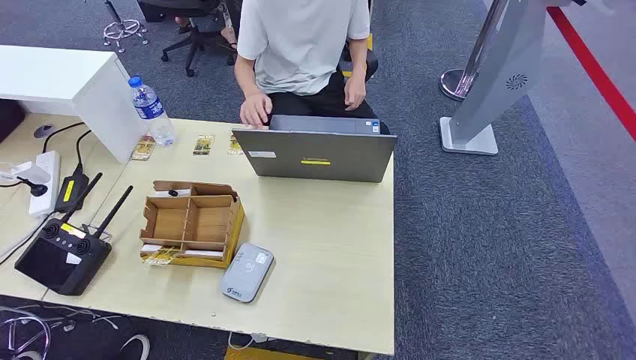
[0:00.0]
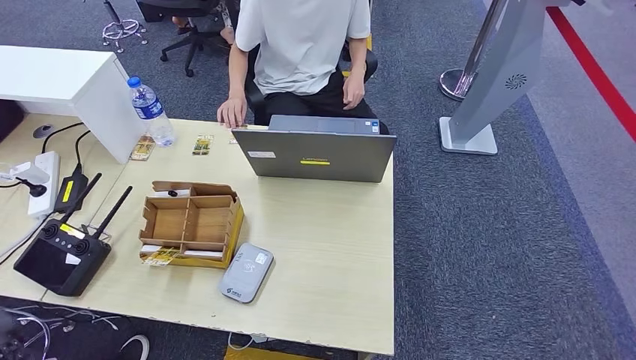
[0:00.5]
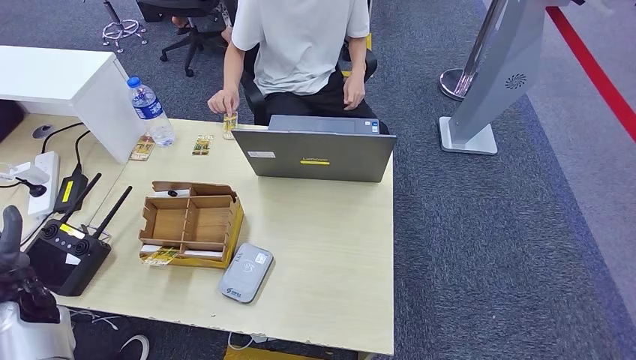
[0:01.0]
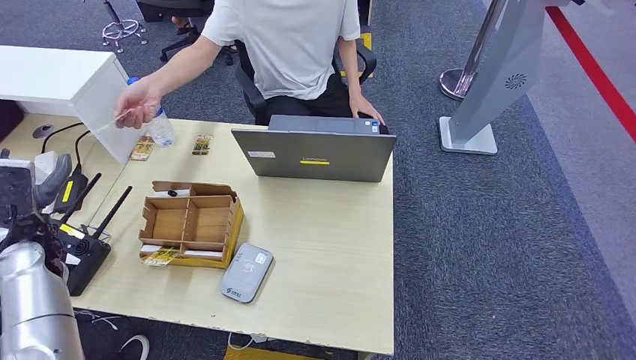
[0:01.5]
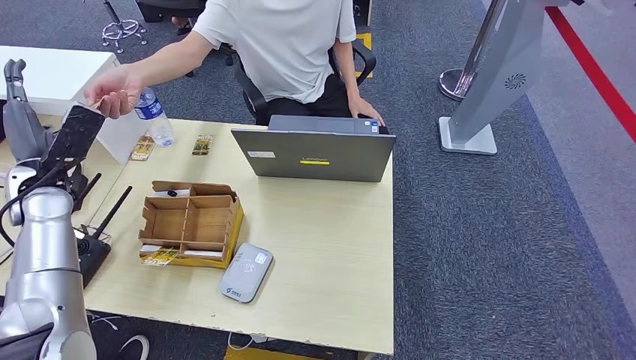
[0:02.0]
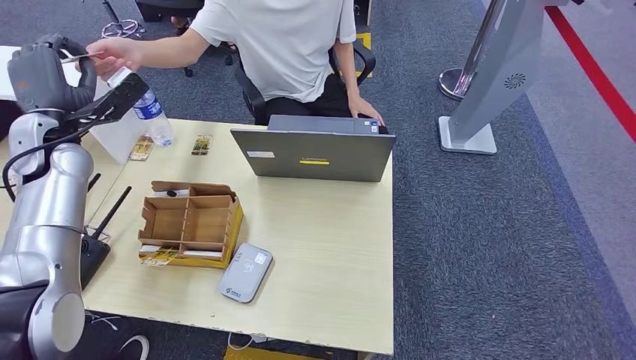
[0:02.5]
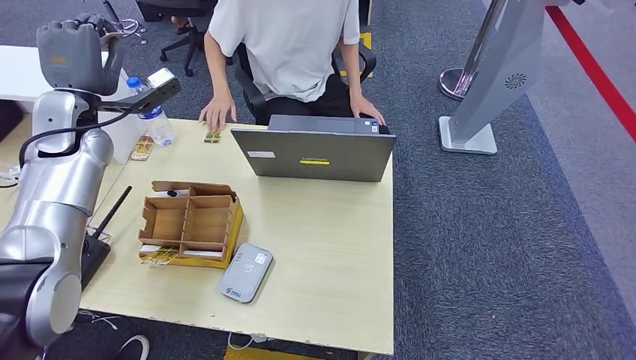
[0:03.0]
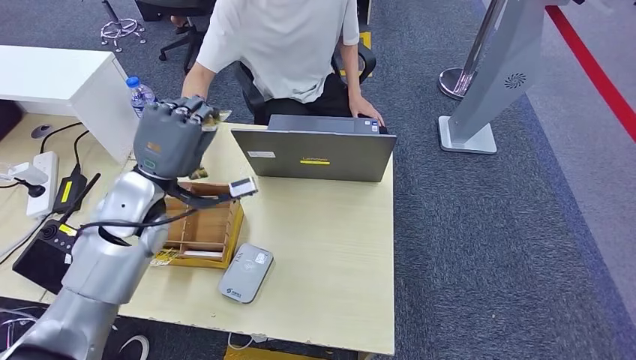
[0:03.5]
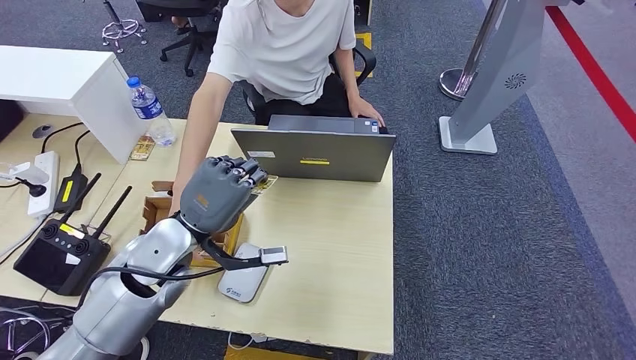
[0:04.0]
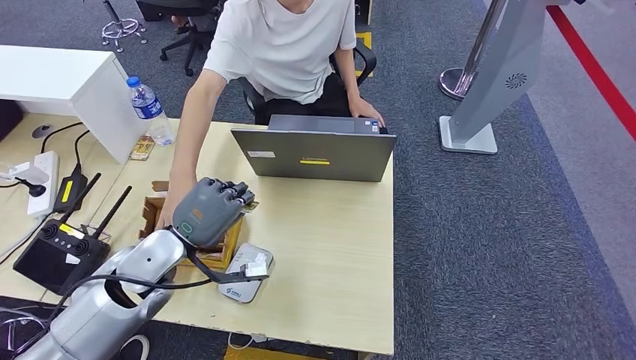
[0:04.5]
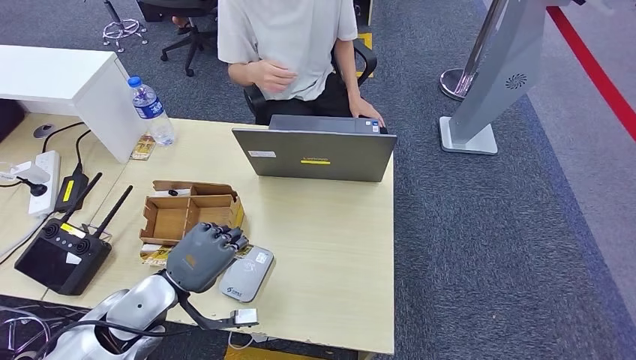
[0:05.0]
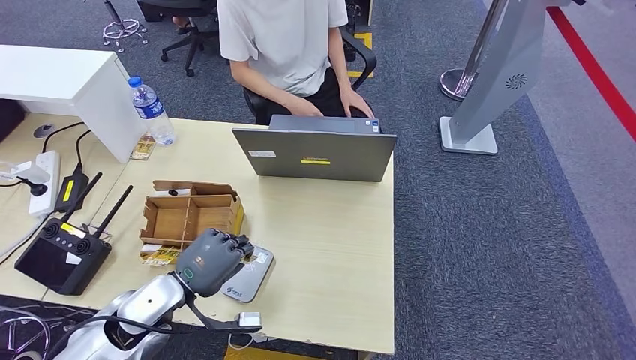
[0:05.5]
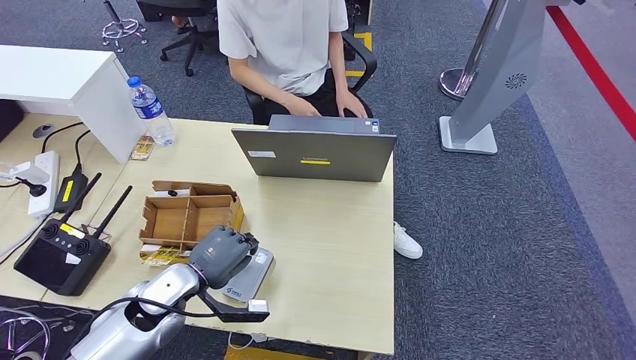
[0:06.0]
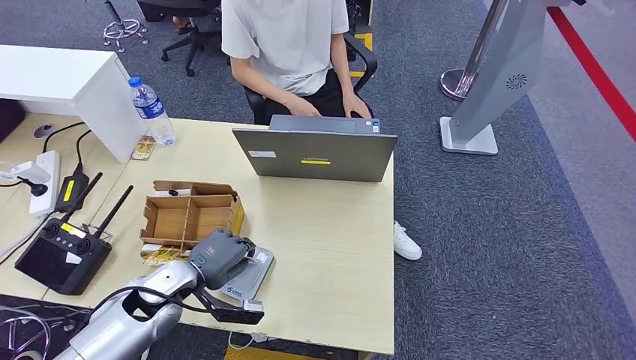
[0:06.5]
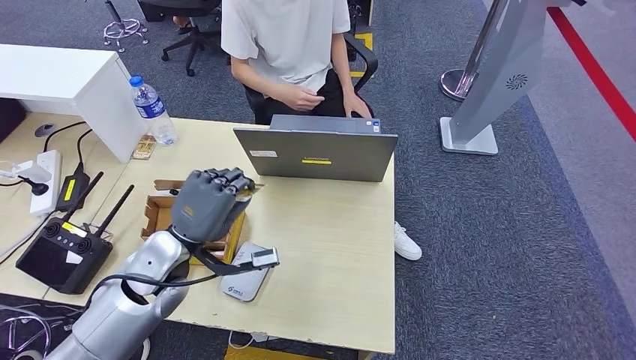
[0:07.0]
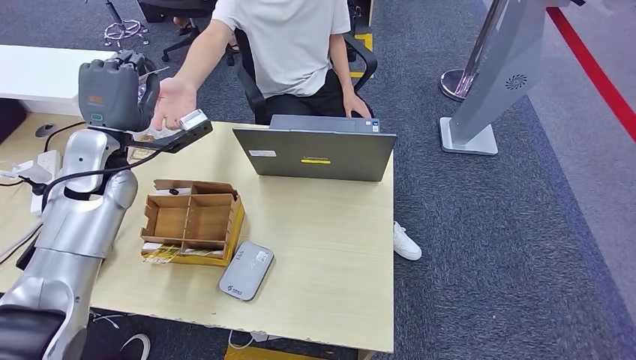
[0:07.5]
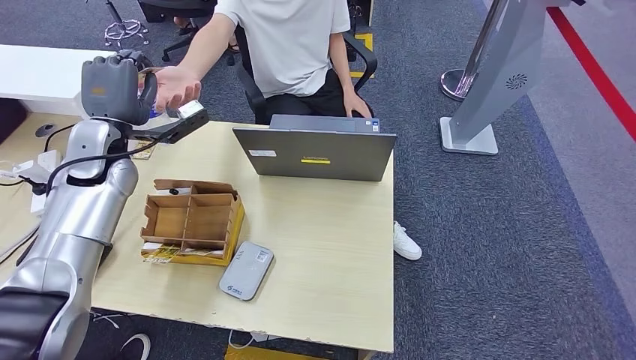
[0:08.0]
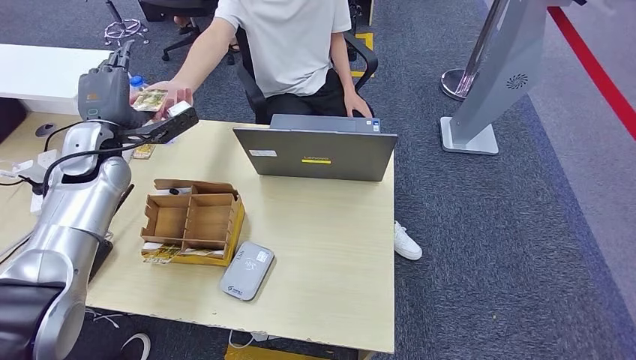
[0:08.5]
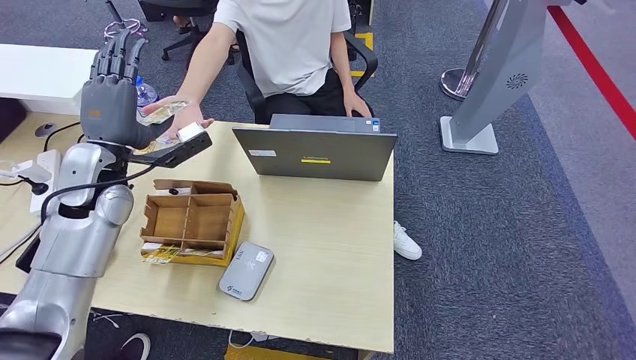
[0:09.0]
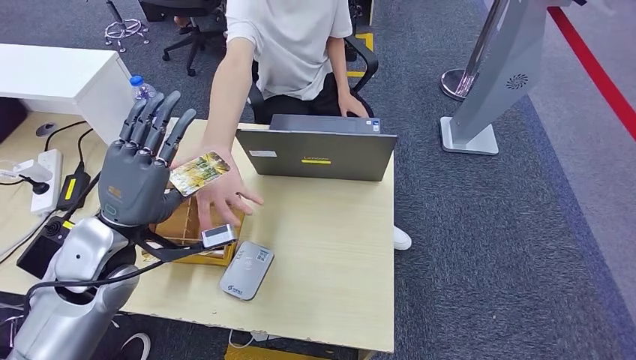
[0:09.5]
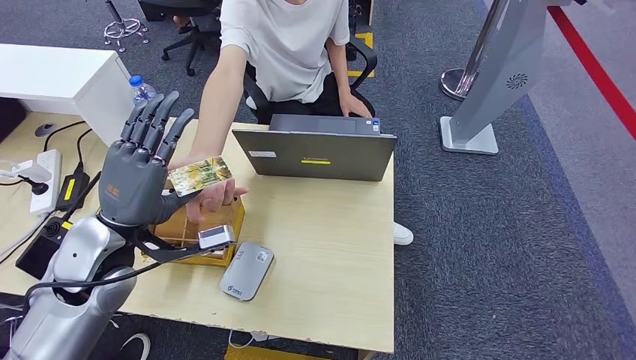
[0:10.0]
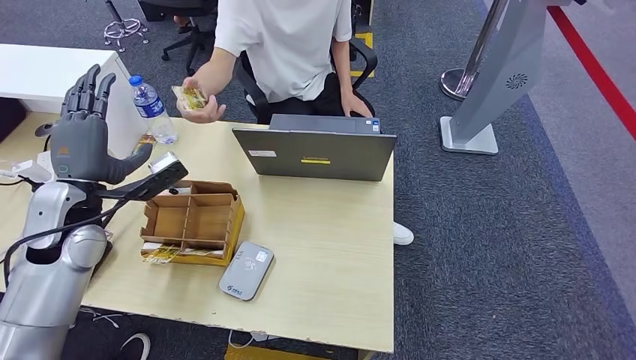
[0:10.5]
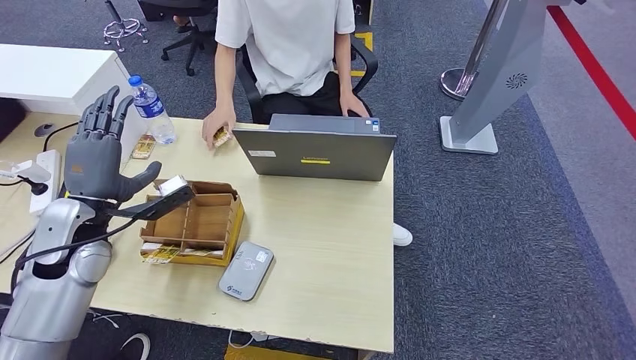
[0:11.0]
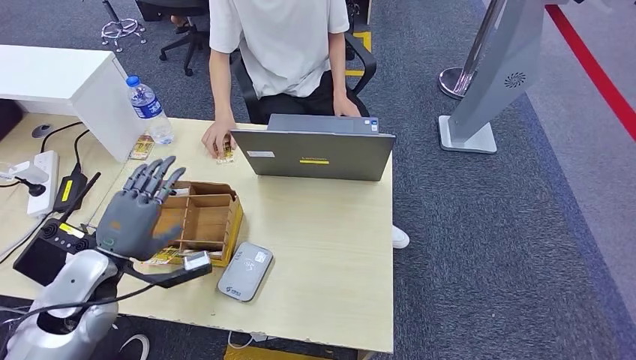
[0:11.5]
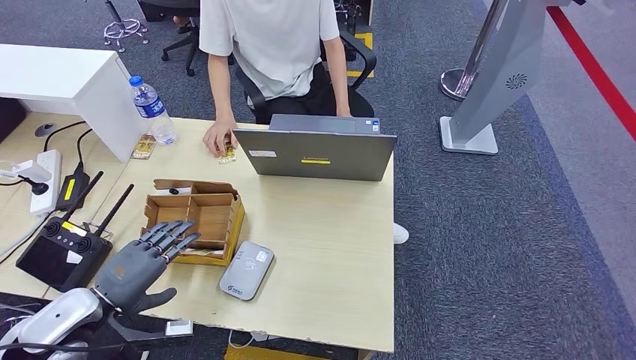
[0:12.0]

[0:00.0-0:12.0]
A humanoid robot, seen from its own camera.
Step, 0:00.0 to 0:02.5: Take the ID card from the person's hand.
Step, 0:03.0 to 0:06.0: Place the ID card on the card reader.
Step, 0:06.5 to 0:09.0: Hand the ID card to the person.
0:04.0 to 0:06.0: The left hand heads downward, covering approximately 10 cm.
0:10.0 to 0:12.0: The left hand goes about 15 cm downward, to the left and backward.

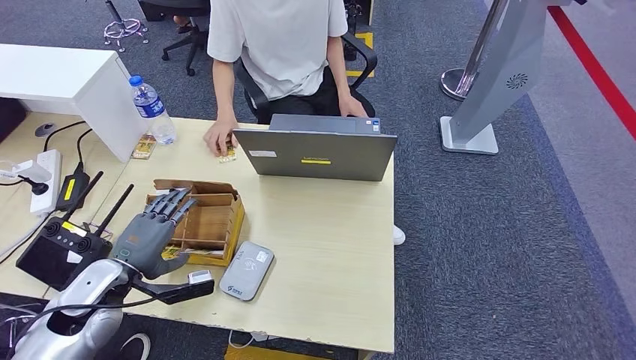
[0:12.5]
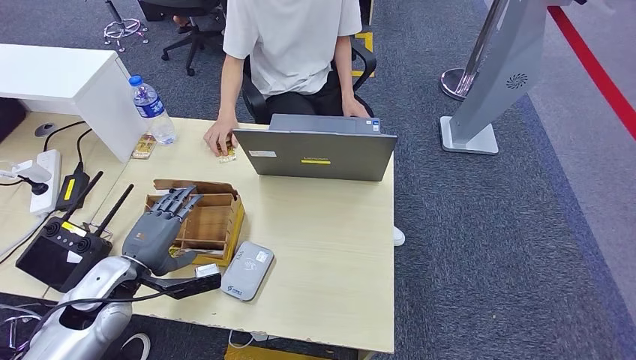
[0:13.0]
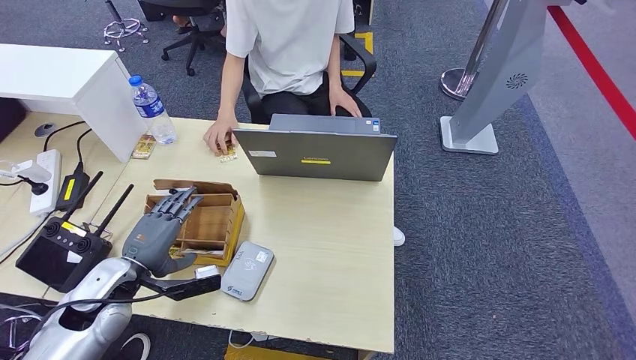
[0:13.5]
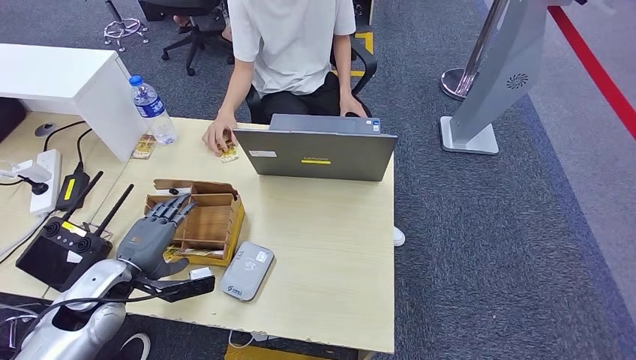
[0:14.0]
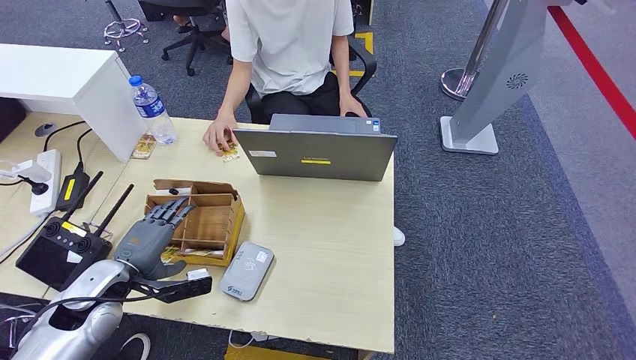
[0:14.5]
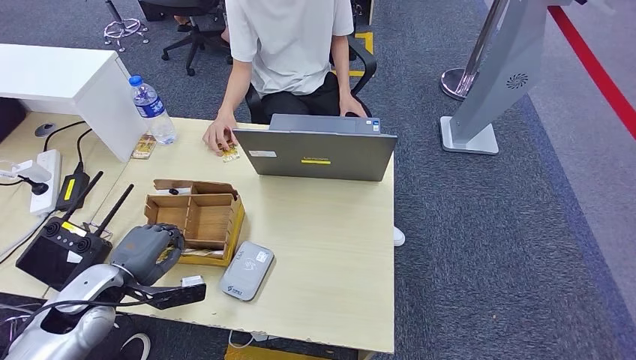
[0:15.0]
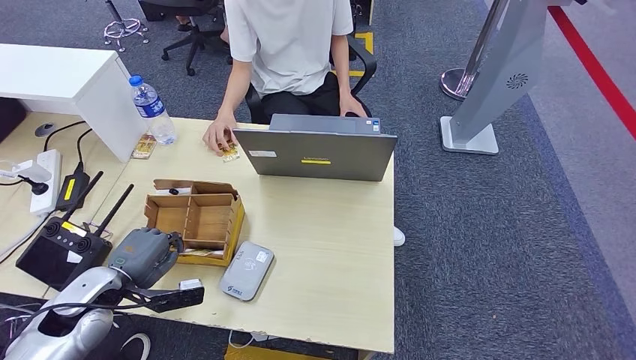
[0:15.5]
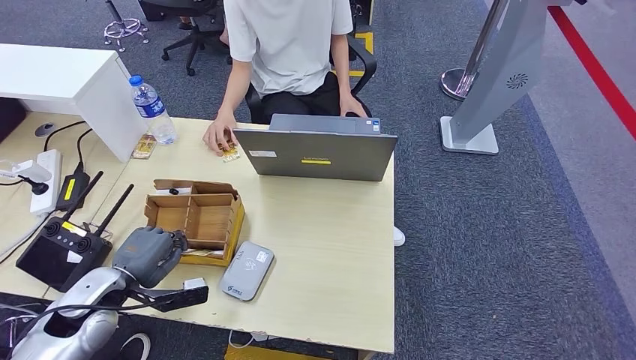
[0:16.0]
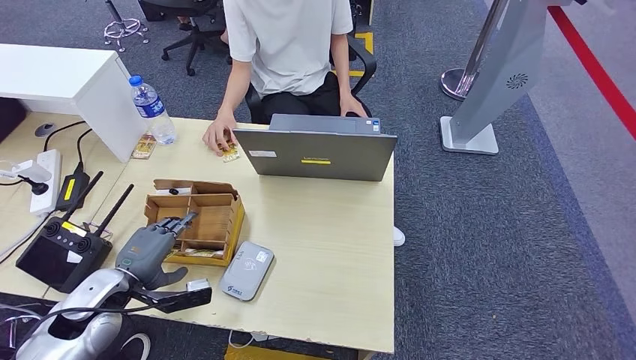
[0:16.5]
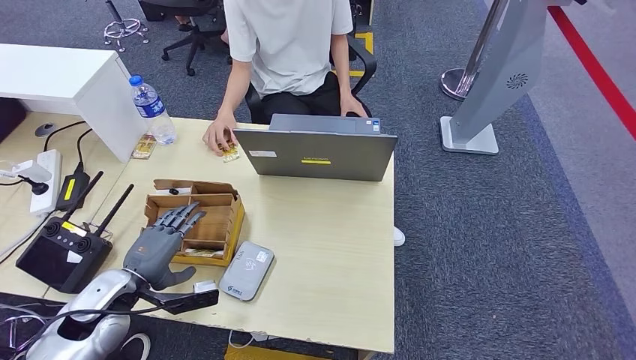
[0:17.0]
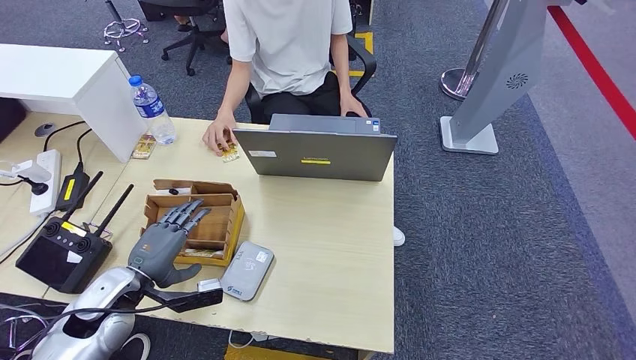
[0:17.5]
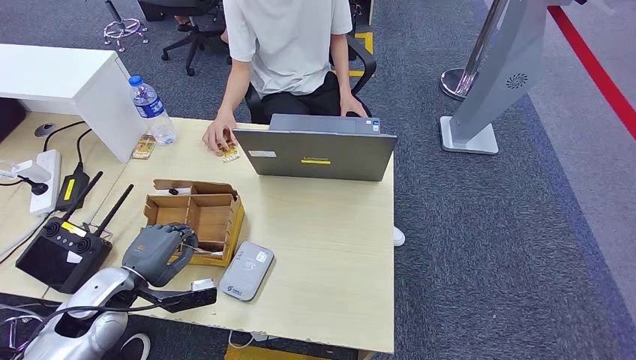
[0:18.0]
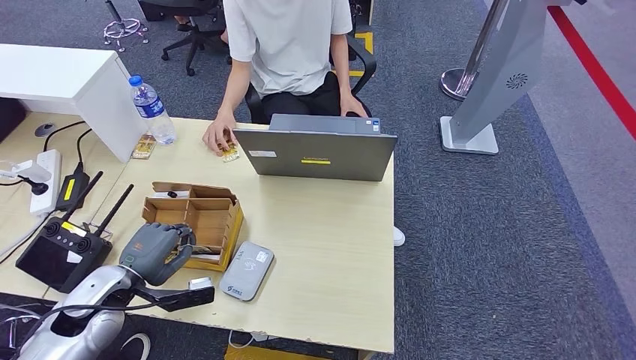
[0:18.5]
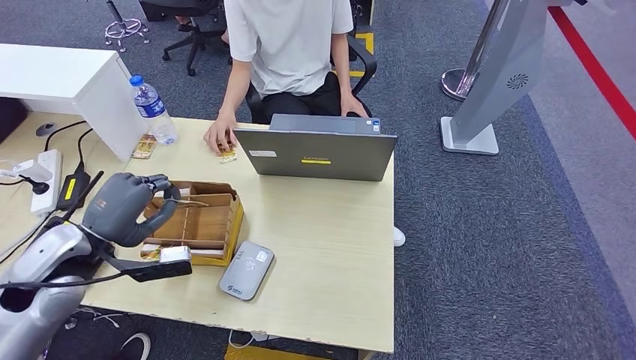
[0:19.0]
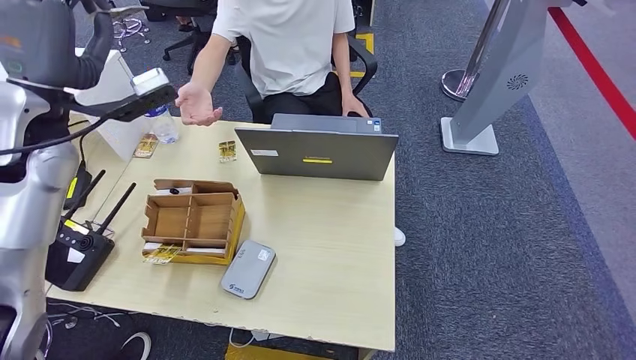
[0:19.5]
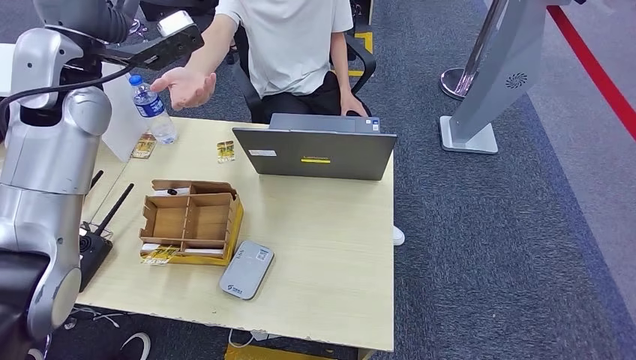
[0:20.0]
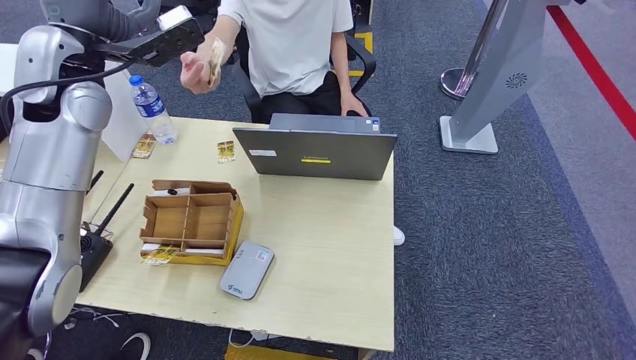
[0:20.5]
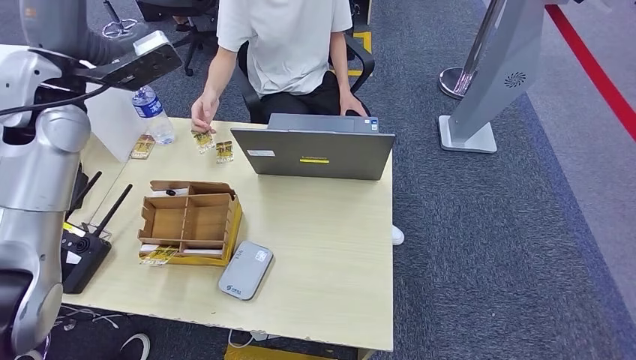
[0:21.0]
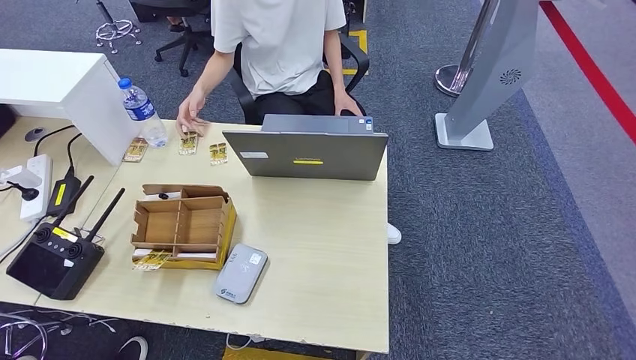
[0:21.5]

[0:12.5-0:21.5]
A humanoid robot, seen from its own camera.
Step, 0:12.5 to 0:19.5: Pick up the room key from the key card box.
Step, 0:20.0 to 0:21.5: Hand the room key to the person.
0:12.5 to 0:17.0: The hands move only a little.
